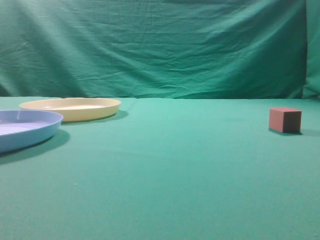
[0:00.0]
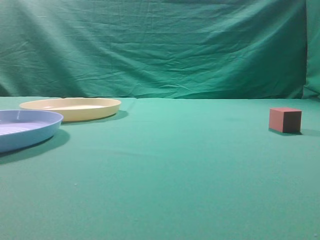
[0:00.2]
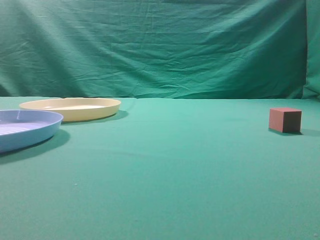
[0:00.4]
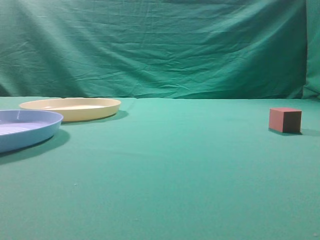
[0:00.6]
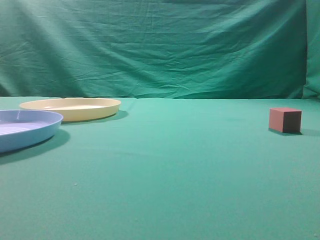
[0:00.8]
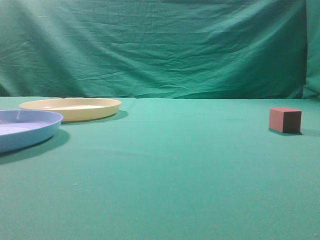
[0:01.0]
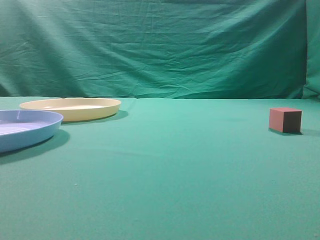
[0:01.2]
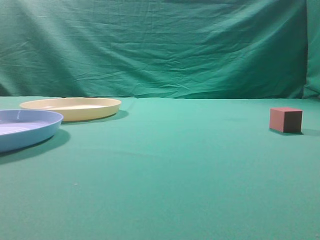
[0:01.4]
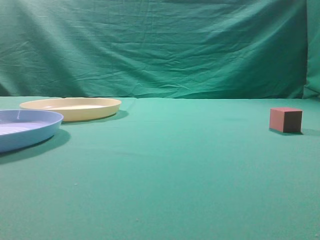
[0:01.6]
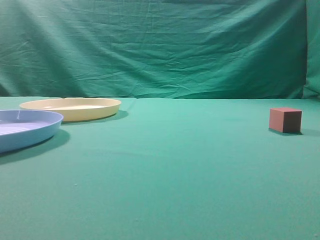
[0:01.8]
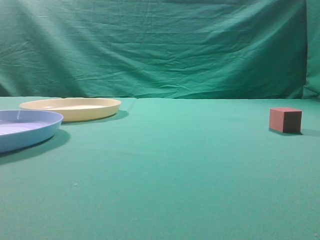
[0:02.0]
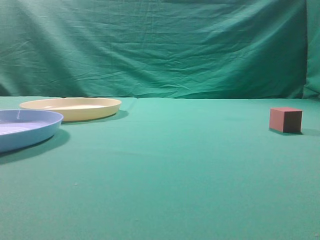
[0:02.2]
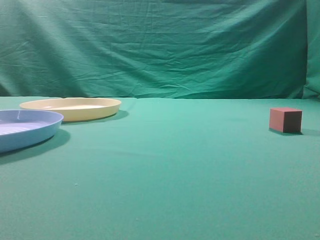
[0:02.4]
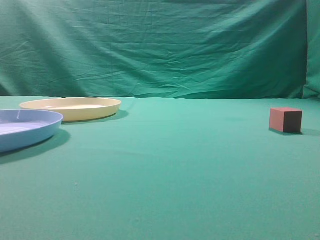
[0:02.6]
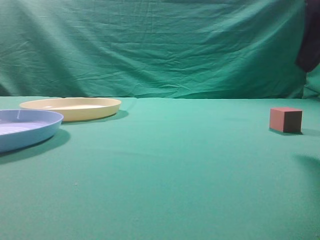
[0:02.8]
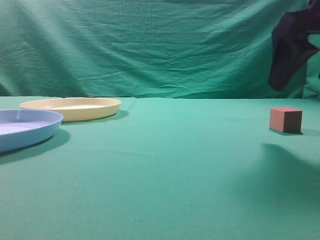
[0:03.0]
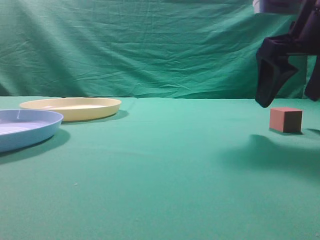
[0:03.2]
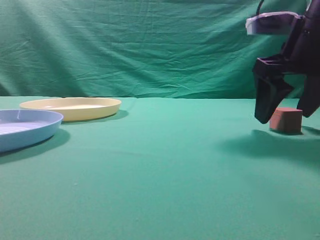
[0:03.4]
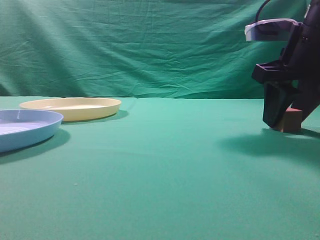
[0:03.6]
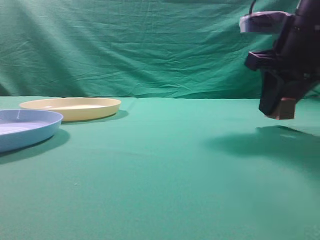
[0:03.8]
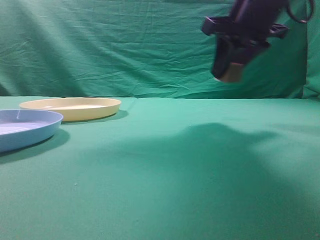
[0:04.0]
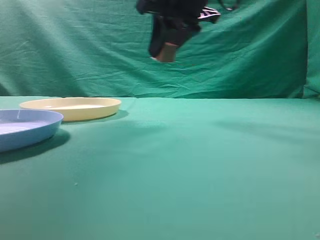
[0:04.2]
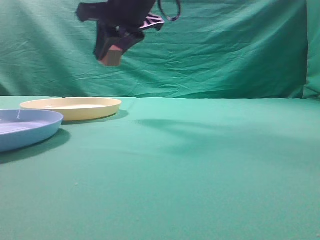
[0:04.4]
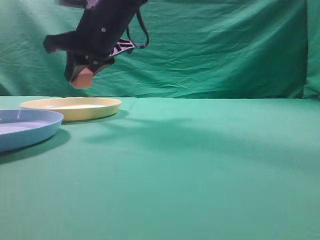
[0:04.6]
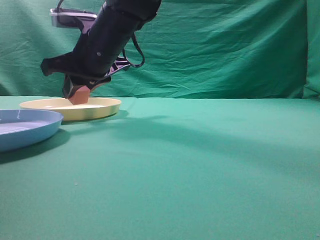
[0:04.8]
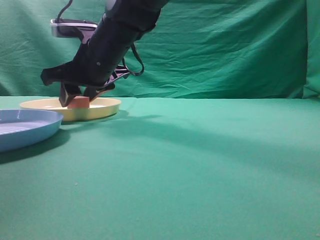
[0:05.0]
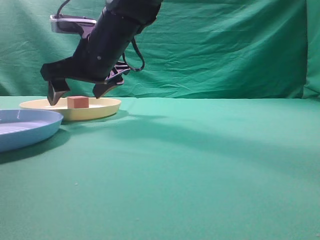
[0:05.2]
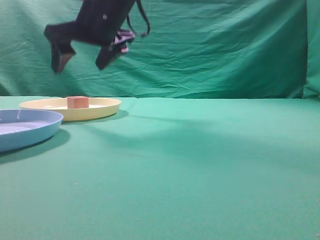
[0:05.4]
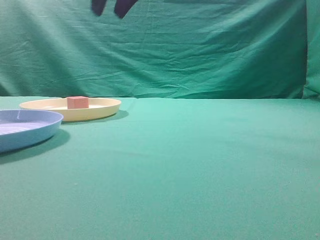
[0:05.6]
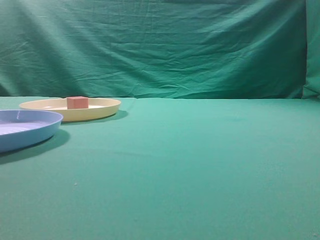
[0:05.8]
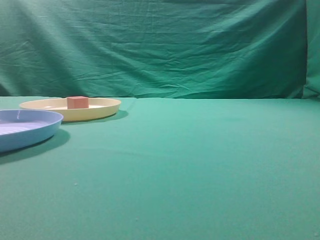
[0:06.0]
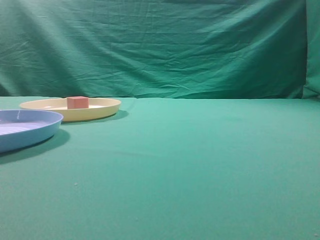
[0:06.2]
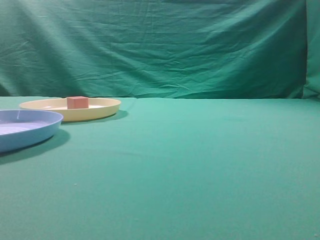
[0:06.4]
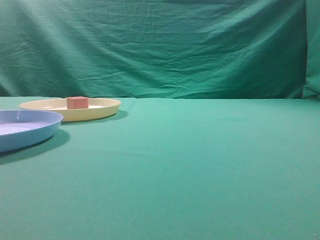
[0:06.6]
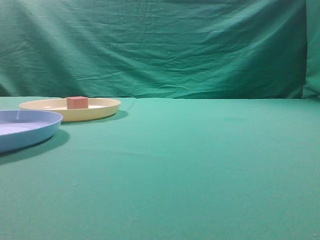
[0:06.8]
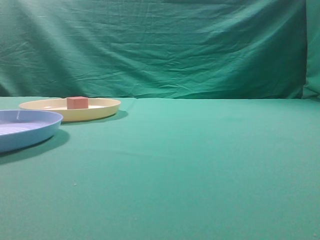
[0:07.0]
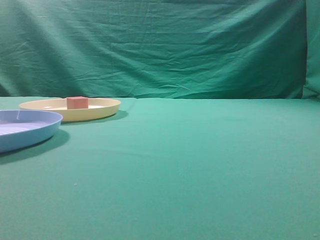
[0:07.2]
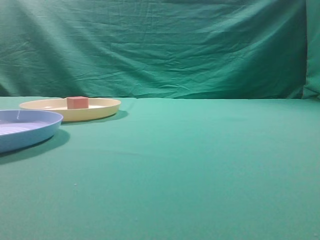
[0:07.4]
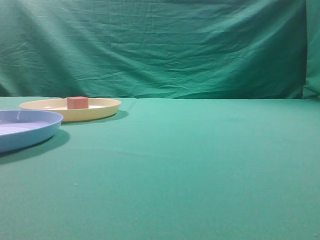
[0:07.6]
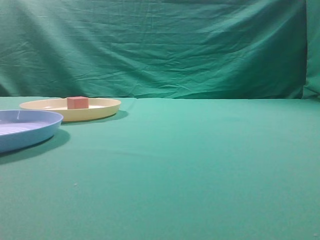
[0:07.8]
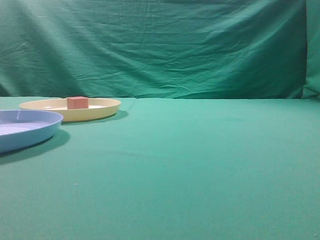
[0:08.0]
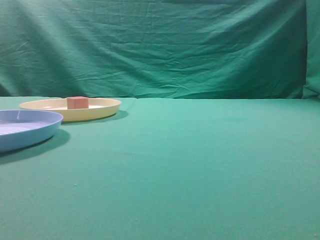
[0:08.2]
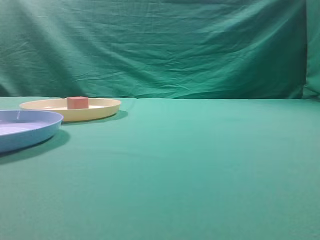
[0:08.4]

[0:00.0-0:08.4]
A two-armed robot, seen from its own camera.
Task of the whole recording: pick up the cube block from the table and put it on the plate.
Step, 0:00.0 to 0:03.8: Grasp the small cube on the table.
Step, 0:04.0 to 0:05.4: Place it into the yellow plate.
0:01.4 to 0:02.8: The right gripper heads forward, covering about 20 cm, and opens.
0:02.8 to 0:04.2: The right gripper goes some 25 cm to the left and forward, and closes.
0:04.2 to 0:05.6: The right gripper moves upward, approximately 10 cm, and opens, then closes again.
0:05.6 to 0:07.0: The right gripper shifts approximately 40 cm backward and to the right.
